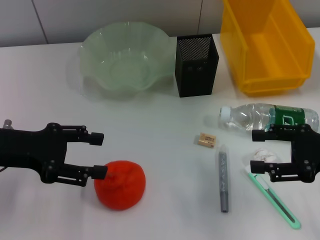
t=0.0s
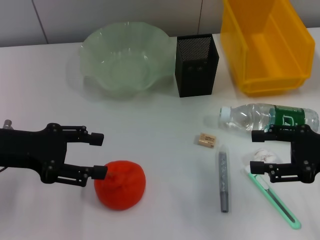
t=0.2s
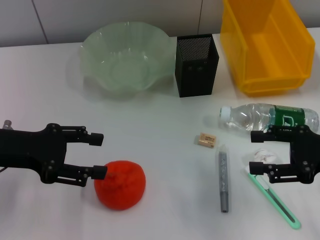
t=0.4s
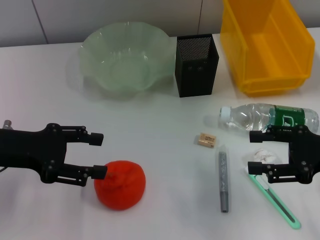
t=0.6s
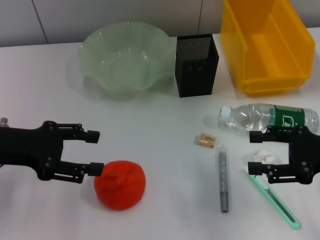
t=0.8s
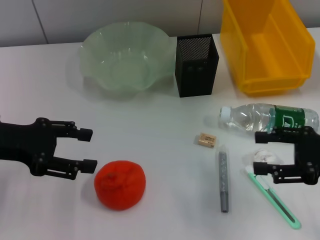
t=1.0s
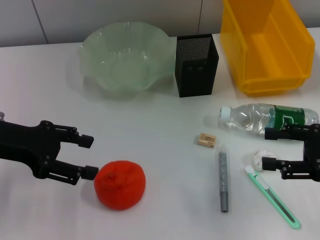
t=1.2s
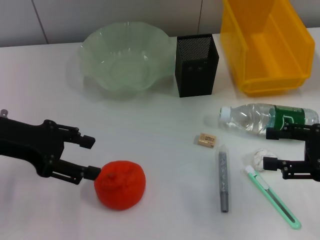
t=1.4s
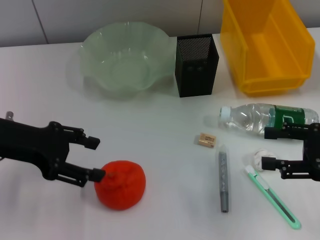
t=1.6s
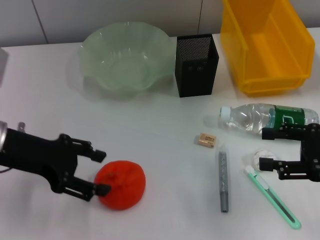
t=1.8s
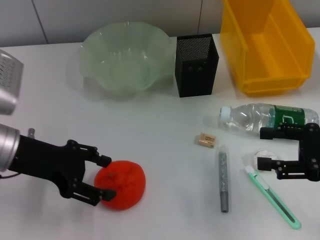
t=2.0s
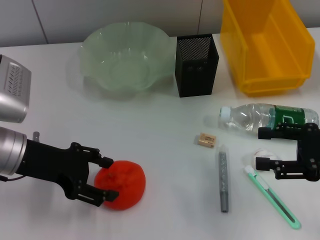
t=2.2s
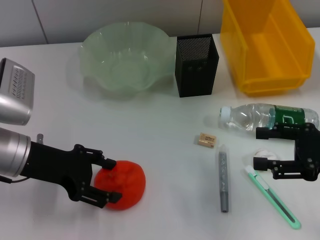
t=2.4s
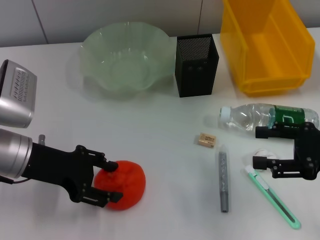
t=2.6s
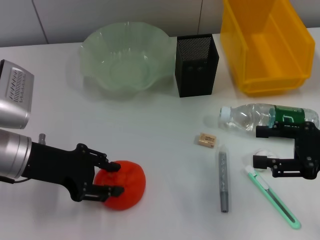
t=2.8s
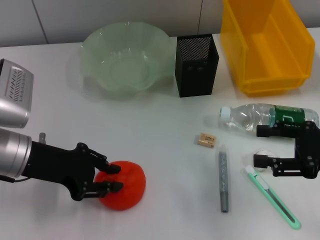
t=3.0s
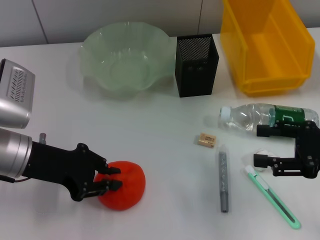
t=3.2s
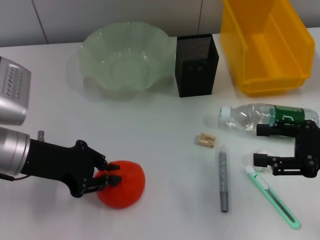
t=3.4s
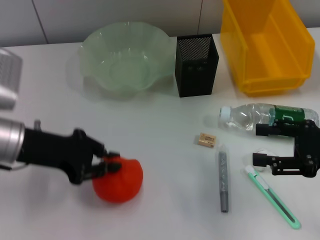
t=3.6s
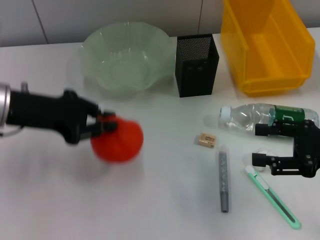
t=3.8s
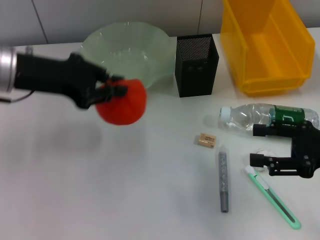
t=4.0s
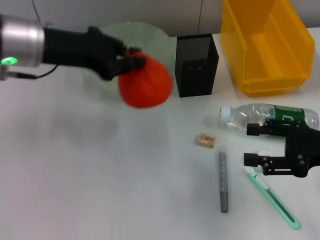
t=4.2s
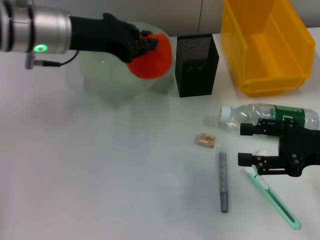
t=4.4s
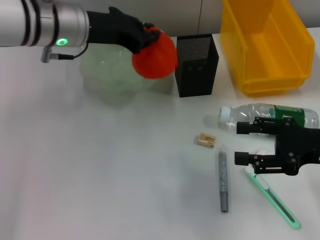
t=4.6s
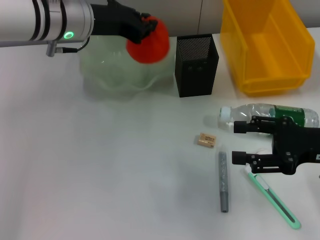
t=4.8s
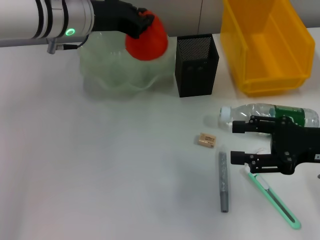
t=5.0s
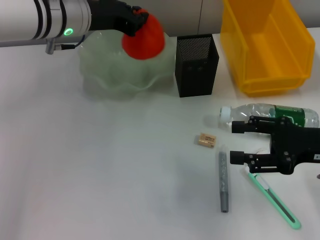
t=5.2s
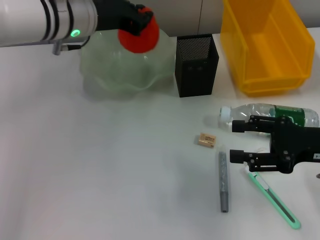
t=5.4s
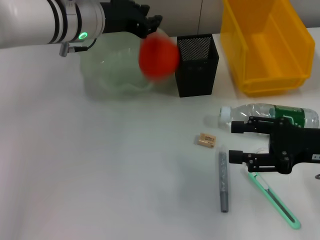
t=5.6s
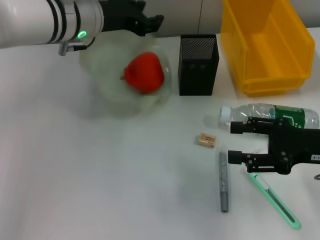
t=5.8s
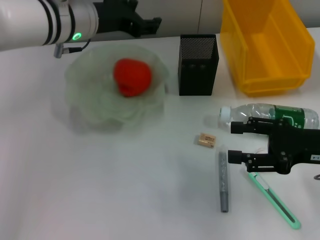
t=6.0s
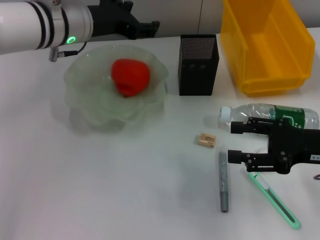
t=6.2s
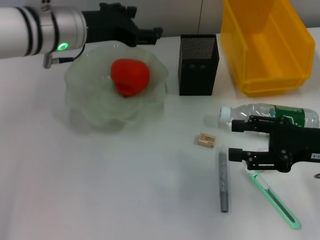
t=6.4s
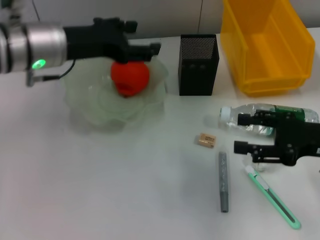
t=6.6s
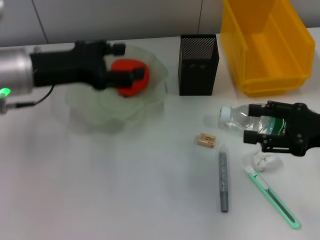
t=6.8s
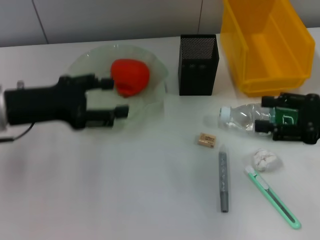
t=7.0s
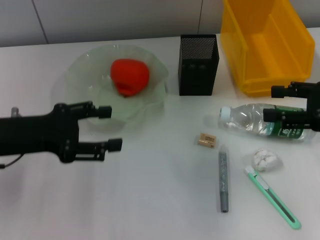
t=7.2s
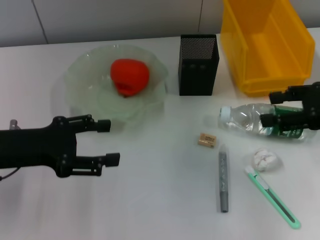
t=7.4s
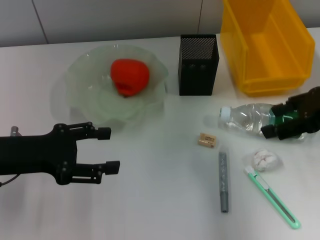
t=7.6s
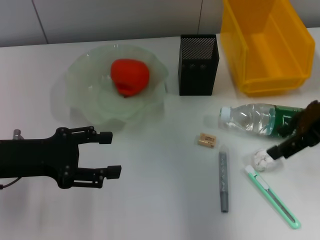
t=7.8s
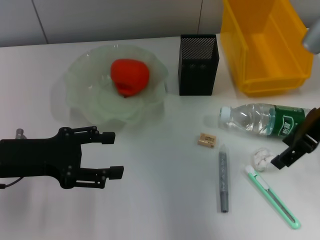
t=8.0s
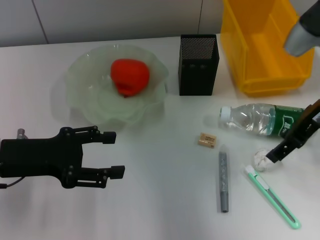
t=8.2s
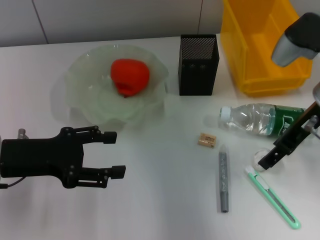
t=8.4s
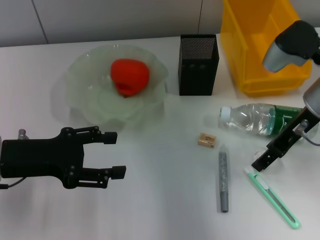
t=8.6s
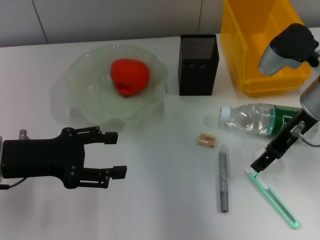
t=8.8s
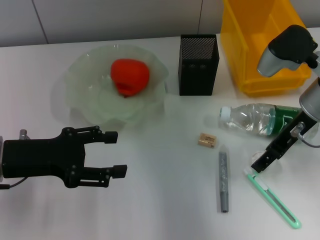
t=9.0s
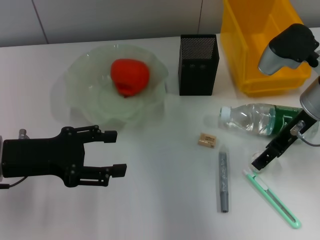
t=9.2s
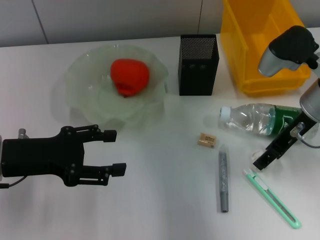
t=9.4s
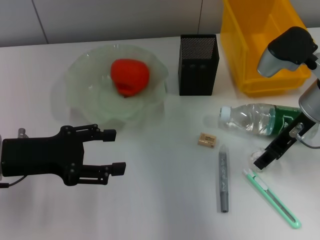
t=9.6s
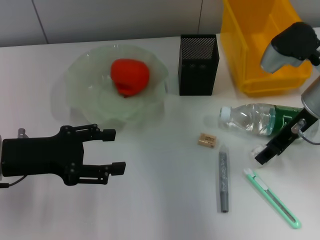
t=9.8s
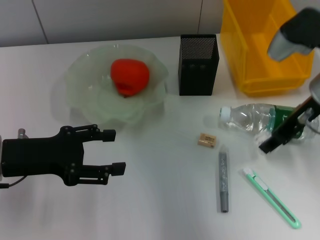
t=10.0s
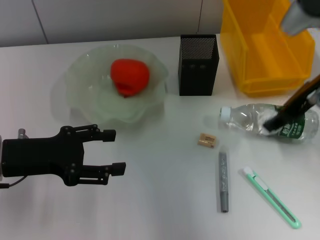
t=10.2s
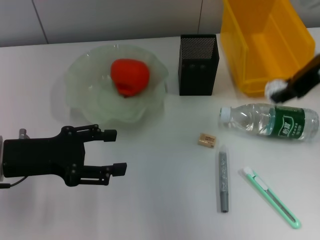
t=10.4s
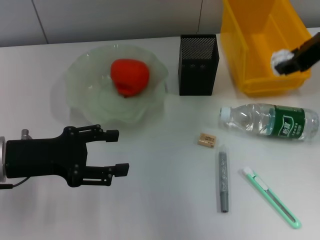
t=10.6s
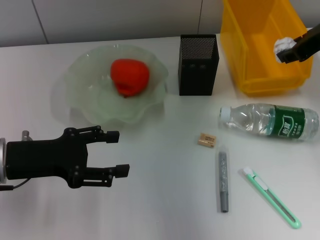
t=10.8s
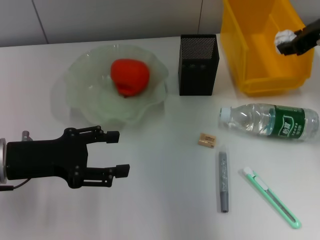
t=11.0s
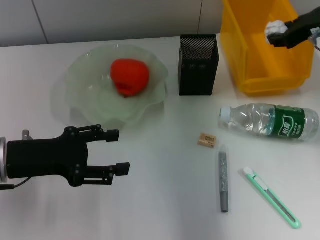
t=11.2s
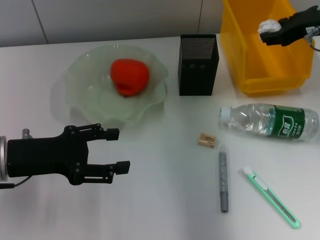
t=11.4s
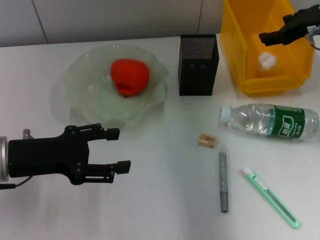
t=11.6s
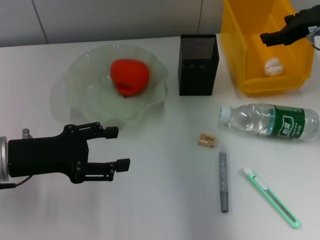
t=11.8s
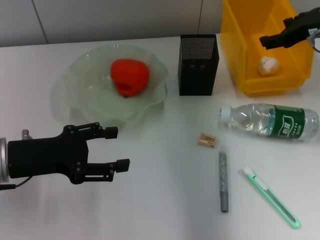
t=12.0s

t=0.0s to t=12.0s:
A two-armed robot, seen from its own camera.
Step, t=0.0s to t=3.2s: Grab the orange with the left hand.
Step, t=3.6s to t=5.8s: Place the orange into the fruit bowl with the left hand.
Step, t=6.0s to t=9.6s: Grab the paper ball with the right hand.
Step, t=9.8s to t=11.8s: Place the paper ball into the trash can with the right hand.
t=0.0s to t=1.6s: The grippers move only a little.
t=1.6s to t=3.0s: The left gripper heads downward, covering about 5 cm.
t=3.0s to t=4.4s: The left gripper travels forward, upward and to the right by about 15 cm, and closes.
t=4.4s to t=6.0s: The left gripper shifts by about 5 cm, and opens up.
t=6.0s to t=7.6s: The right gripper travels upward and forward by about 10 cm; the left gripper shifts roughly 20 cm backward, to the left and downward, and opens up.
t=7.6s to t=9.0s: The right gripper shifts some 10 cm to the left and downward.
t=9.0s to t=10.4s: The right gripper shifts roughly 10 cm upward, and closes up.
t=10.4s to t=12.0s: The right gripper changes place by roughly 10 cm, and opens.

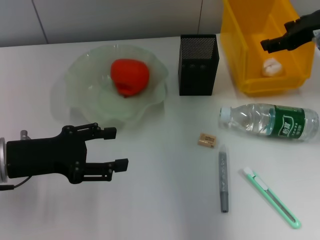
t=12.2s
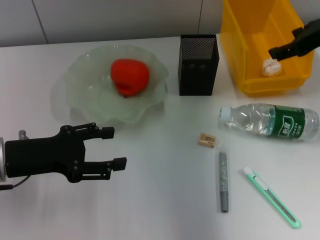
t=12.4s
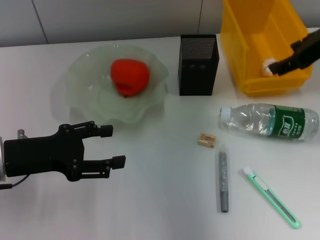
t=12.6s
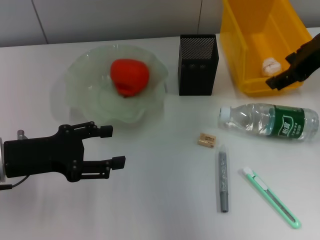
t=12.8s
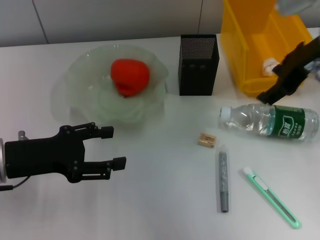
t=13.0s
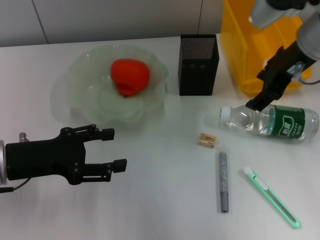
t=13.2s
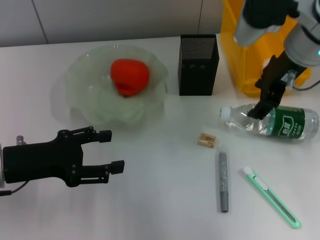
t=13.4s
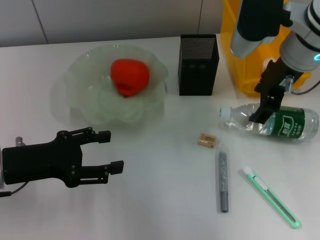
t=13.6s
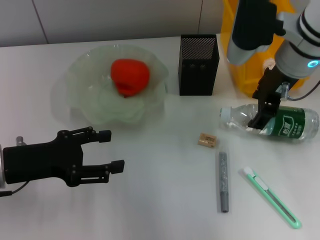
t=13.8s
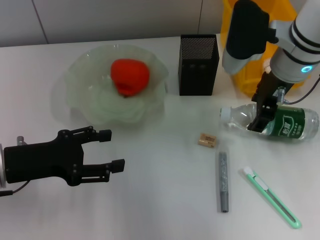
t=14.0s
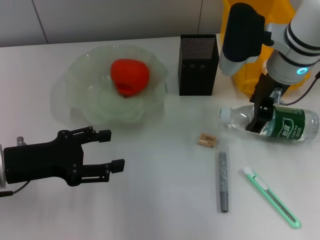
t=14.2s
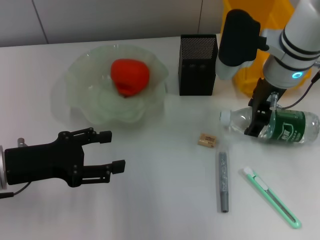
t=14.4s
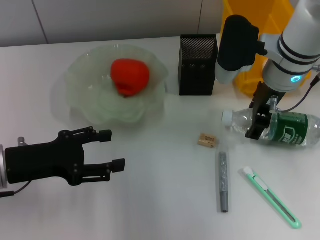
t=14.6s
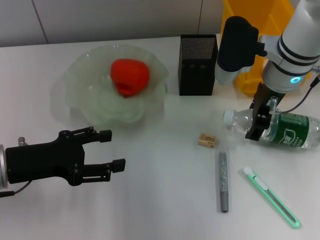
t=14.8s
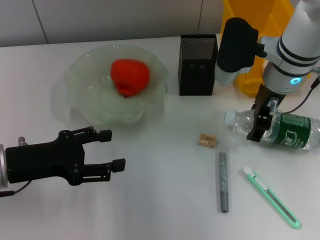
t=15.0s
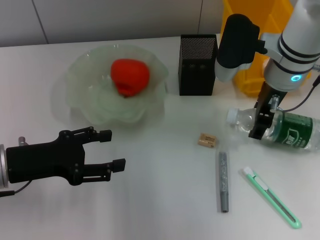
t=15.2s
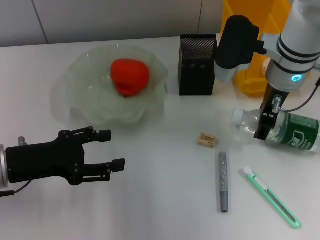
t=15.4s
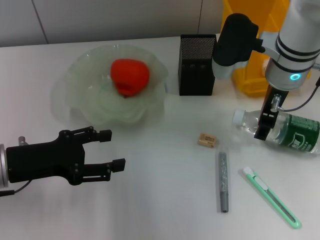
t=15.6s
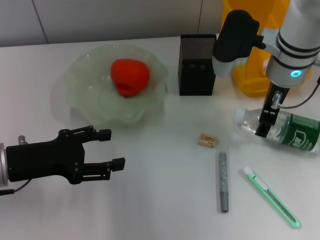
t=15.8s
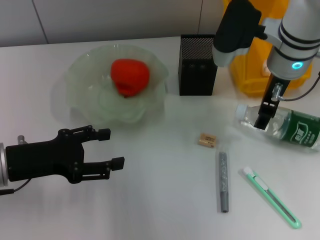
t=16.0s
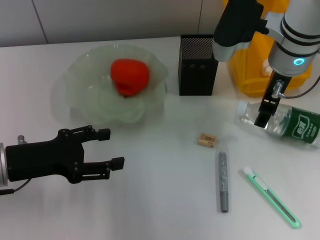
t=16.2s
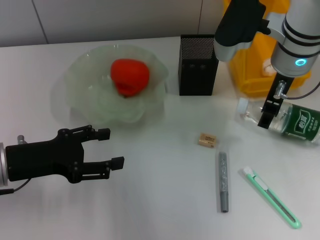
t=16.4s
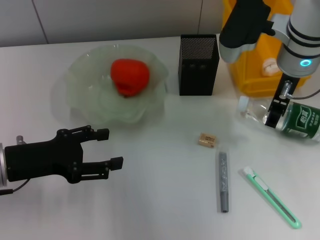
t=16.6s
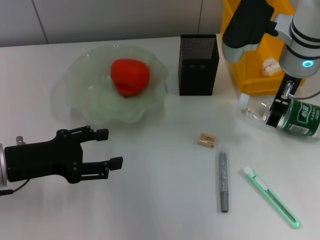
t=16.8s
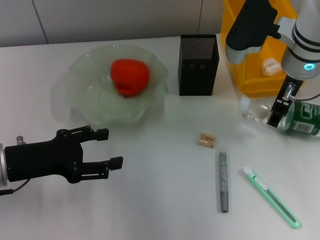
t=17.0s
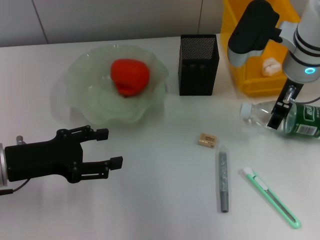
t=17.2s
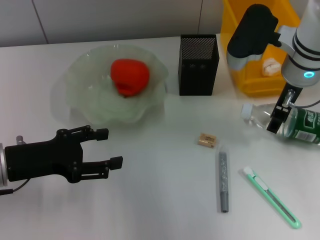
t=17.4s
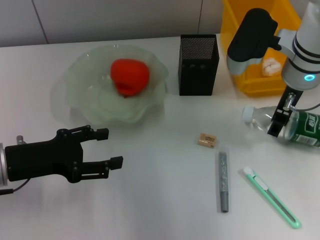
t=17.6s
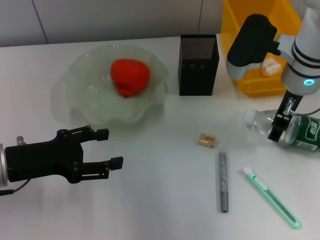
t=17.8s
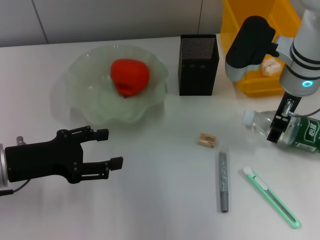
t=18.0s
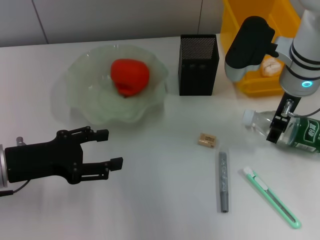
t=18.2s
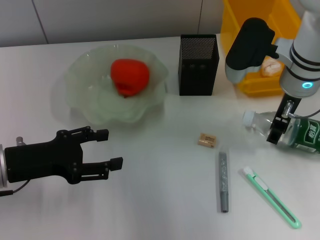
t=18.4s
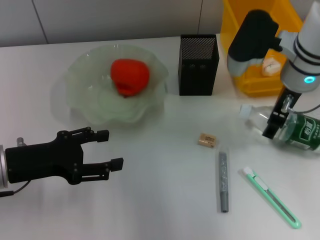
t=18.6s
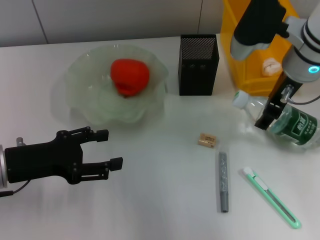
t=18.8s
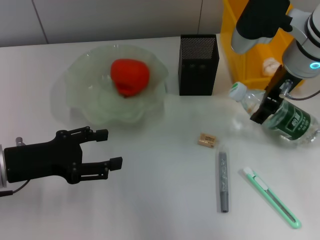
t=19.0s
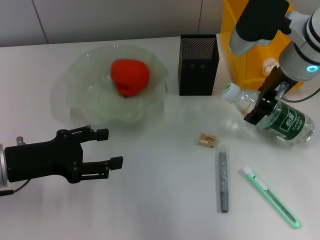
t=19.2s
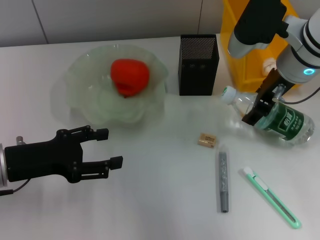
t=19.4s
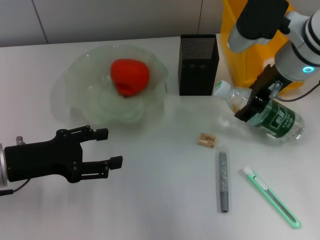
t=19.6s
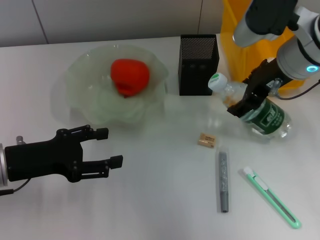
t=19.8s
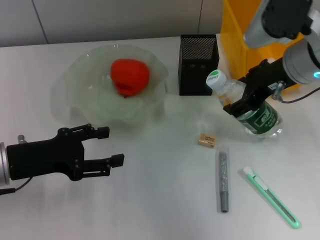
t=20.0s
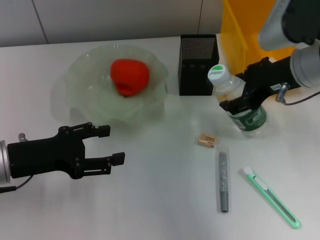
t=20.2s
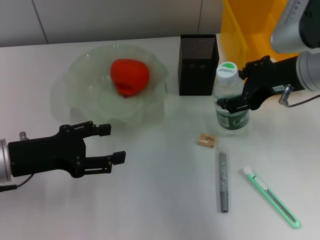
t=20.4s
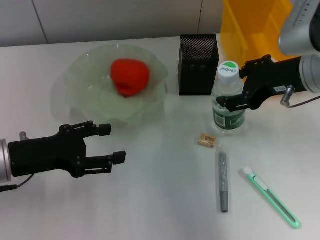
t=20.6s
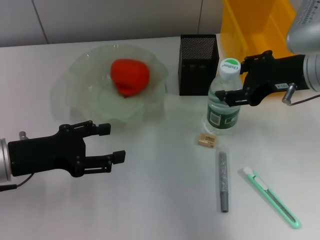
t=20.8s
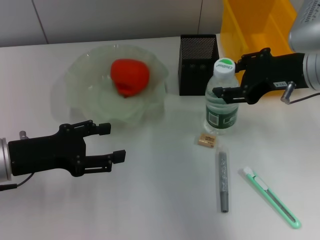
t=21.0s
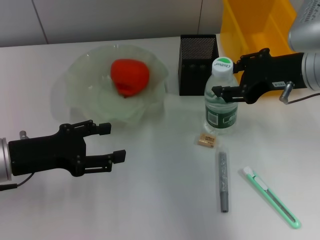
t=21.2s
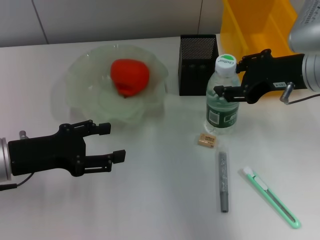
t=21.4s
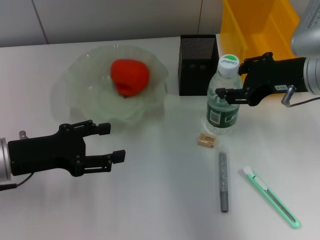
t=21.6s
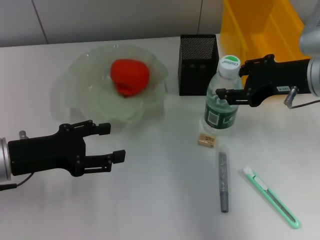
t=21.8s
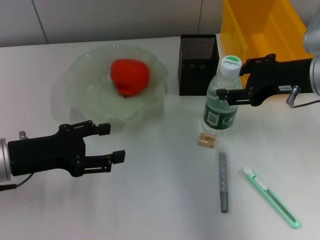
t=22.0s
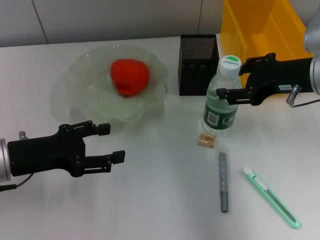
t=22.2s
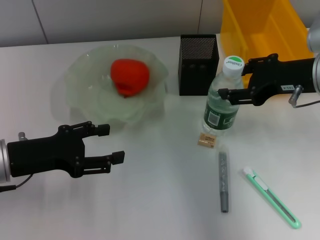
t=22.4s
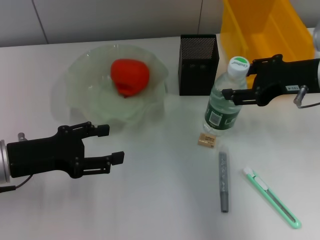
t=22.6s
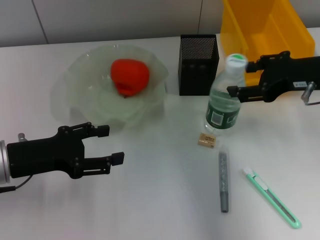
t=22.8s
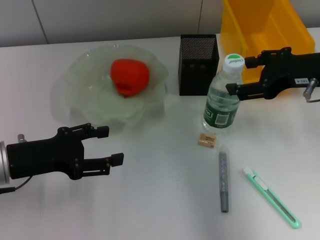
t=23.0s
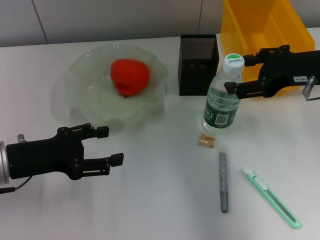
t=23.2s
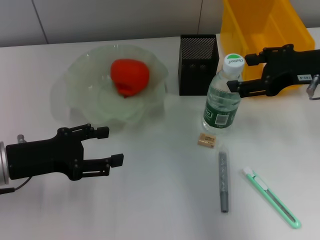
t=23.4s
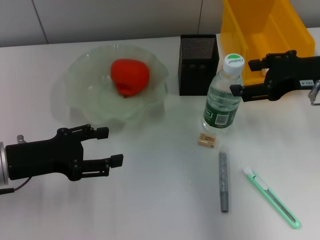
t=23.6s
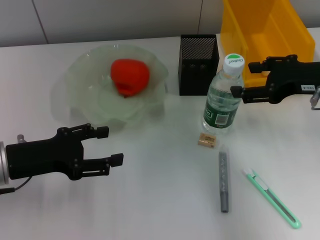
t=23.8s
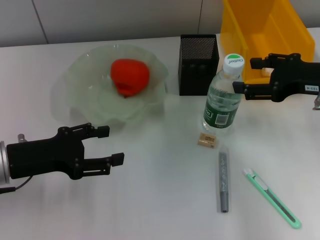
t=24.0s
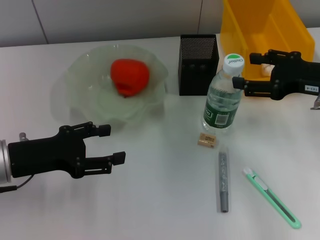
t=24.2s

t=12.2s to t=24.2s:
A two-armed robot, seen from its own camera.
Step, t=12.2s to t=15.4s: Grab the water bottle with the right hand.
t=12.2s to t=13.8s: The right gripper heads to the left, covering roughly 10 cm.
t=13.8s to t=18.2s: The grippers move only a little.
t=19.8s to t=21.2s: The right gripper ends up some 5 cm from where it was.
t=21.2s to t=22.6s: The grippers move only a little.
t=22.6s to t=24.2s: The right gripper ends up about 5 cm from where it was.
